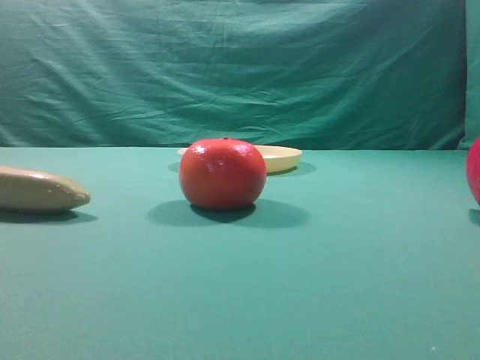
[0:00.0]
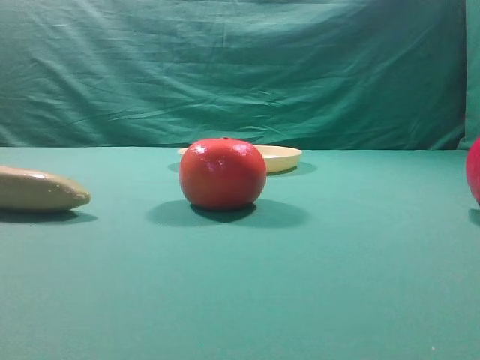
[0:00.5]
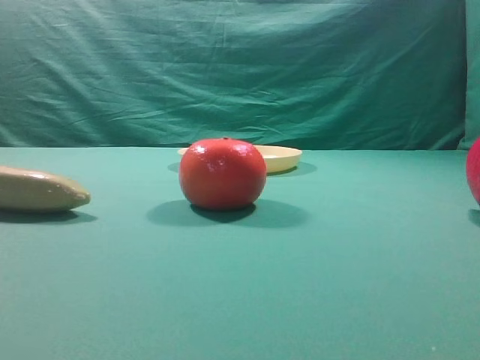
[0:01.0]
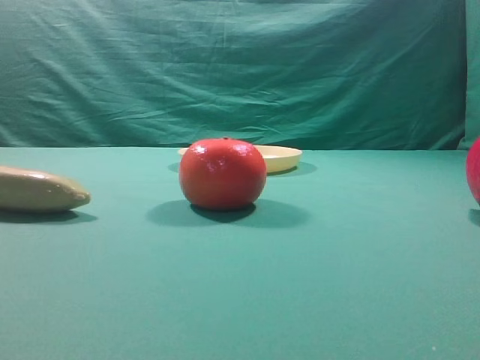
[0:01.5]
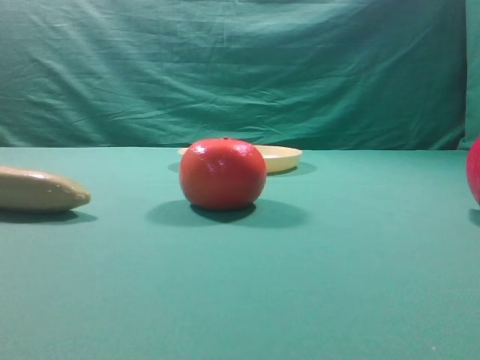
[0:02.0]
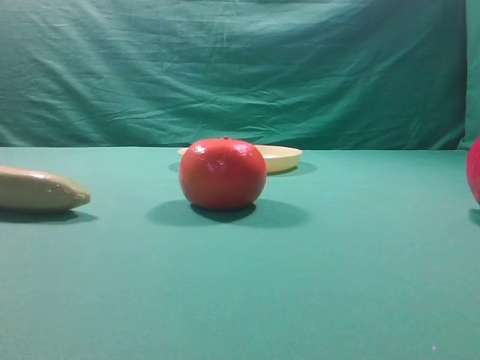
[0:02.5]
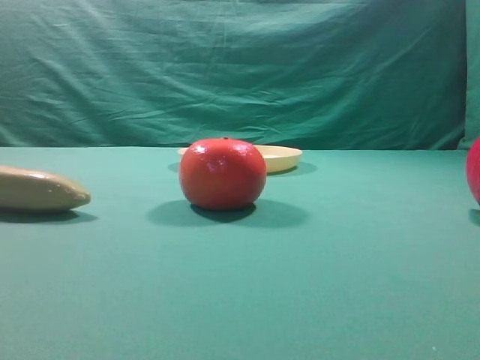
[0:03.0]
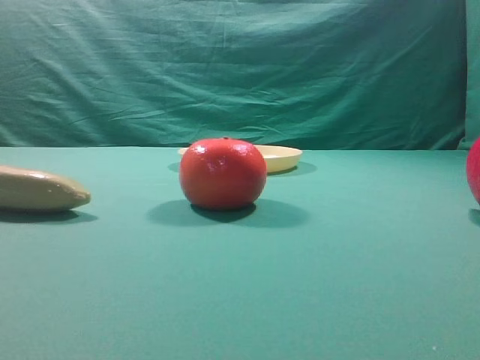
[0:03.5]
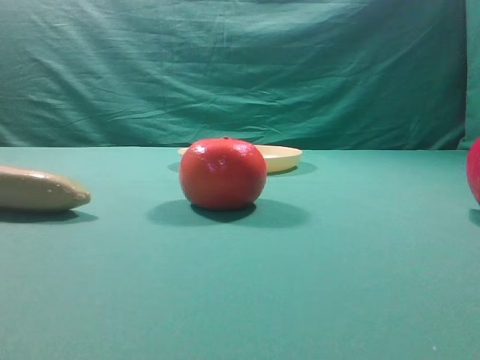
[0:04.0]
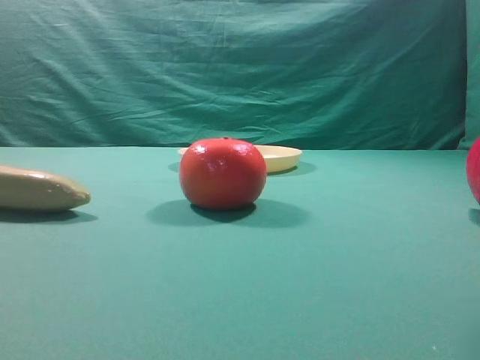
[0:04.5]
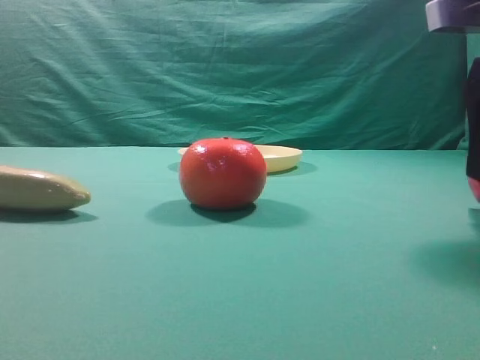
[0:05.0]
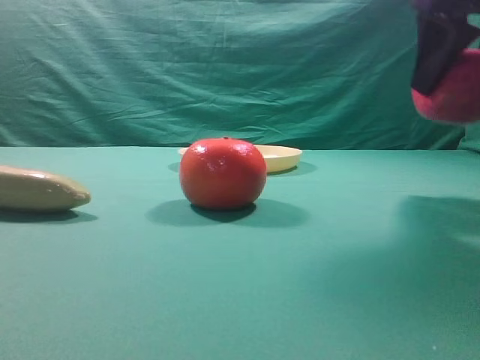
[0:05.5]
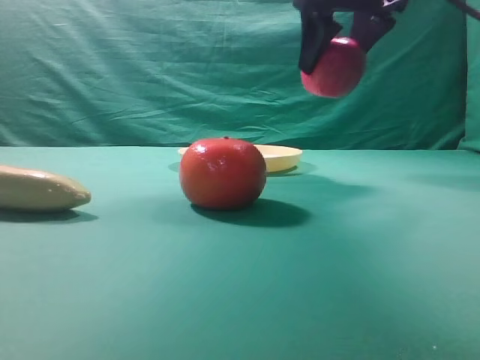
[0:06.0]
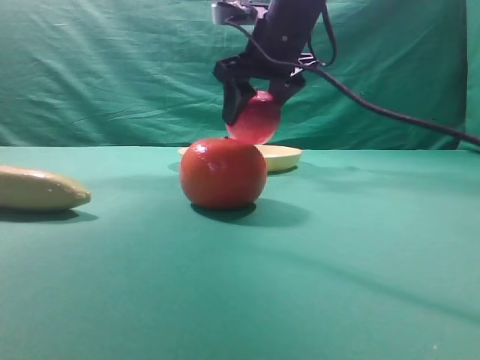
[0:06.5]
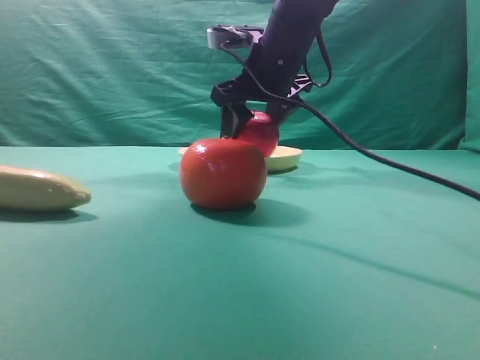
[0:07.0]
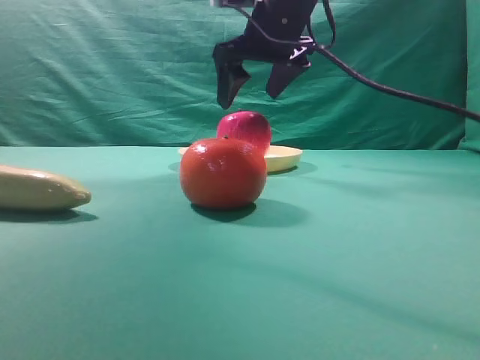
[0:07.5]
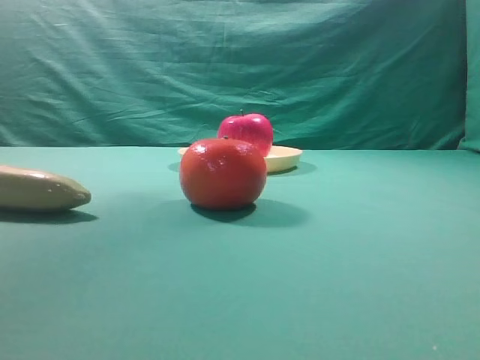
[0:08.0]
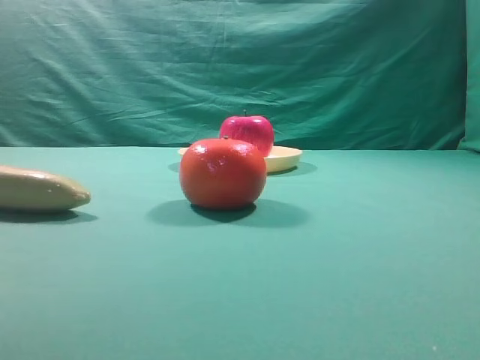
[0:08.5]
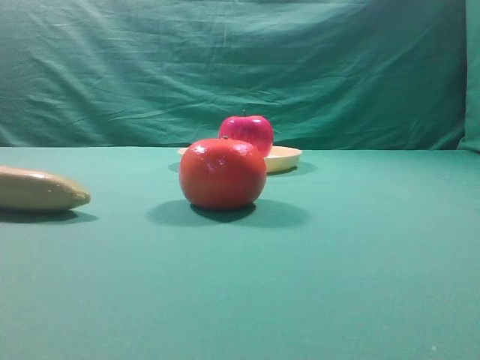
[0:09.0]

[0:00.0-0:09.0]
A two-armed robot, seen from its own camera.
Task of the whole recording: grasp the apple and place it into the yellow plate.
Step, 0:00.0 to 0:05.0: Grasp the fruit that can keep the doctor away.
Step, 0:05.5 to 0:07.5: Place the picked object into the yellow plate.
